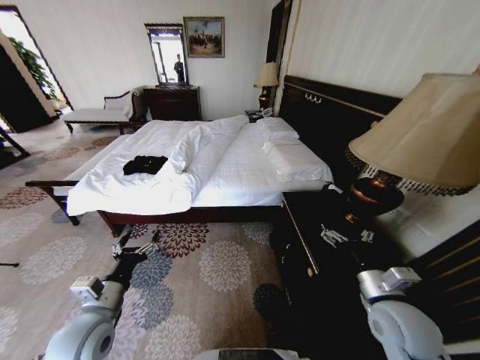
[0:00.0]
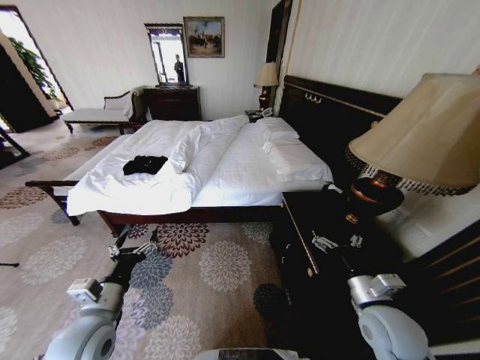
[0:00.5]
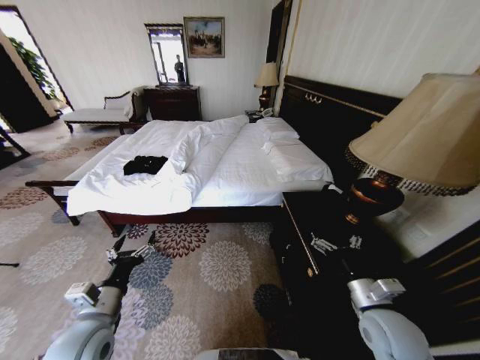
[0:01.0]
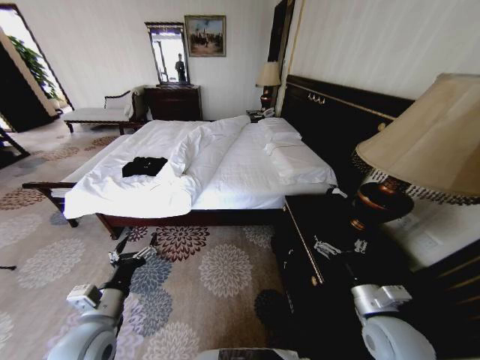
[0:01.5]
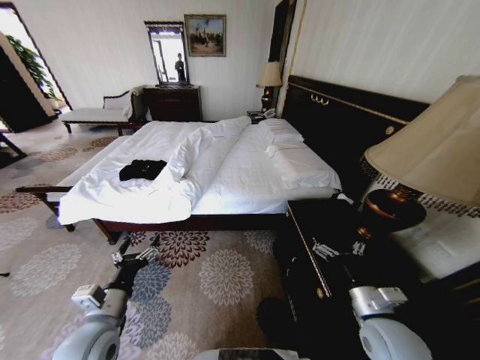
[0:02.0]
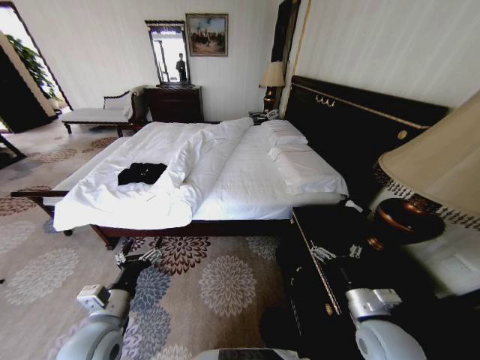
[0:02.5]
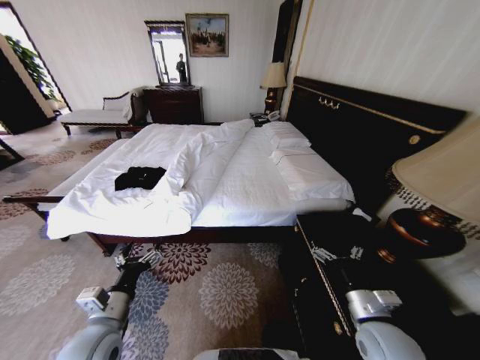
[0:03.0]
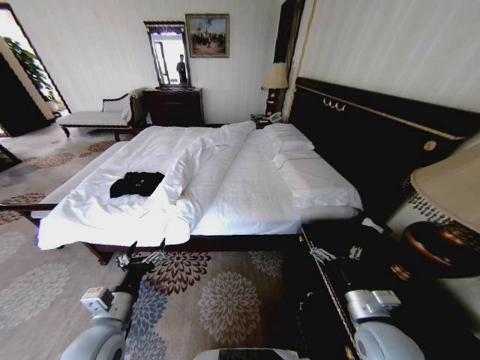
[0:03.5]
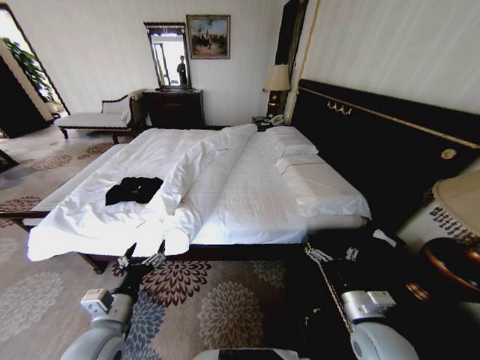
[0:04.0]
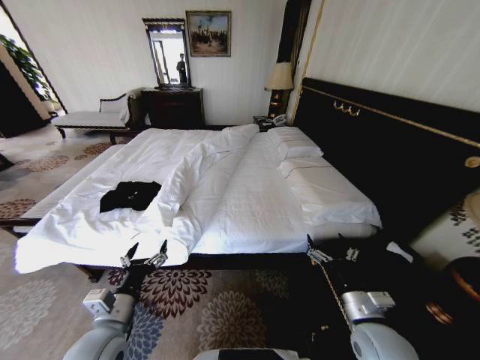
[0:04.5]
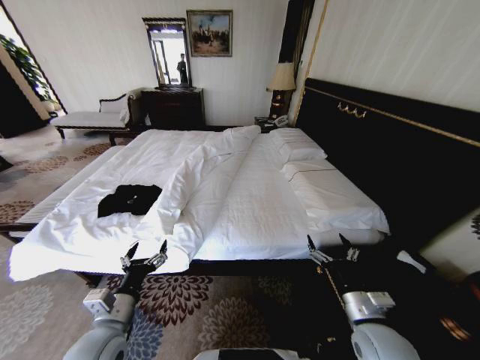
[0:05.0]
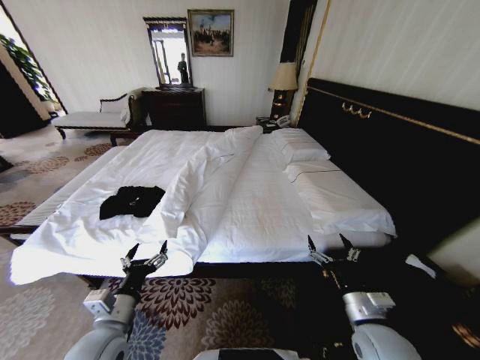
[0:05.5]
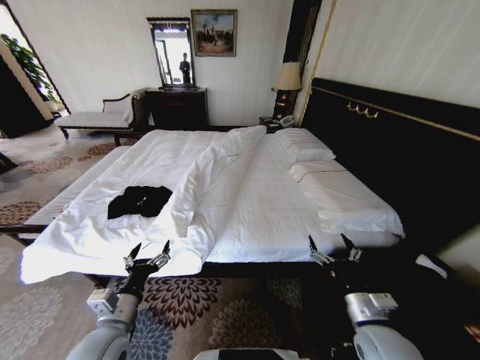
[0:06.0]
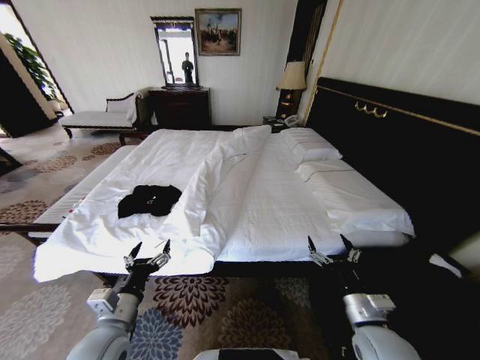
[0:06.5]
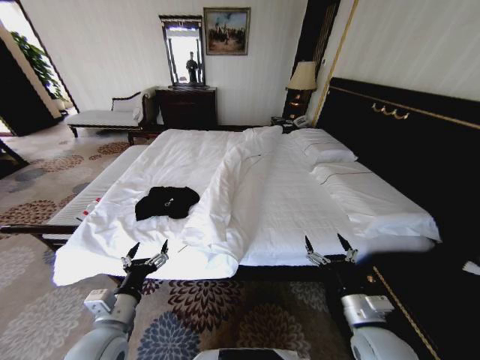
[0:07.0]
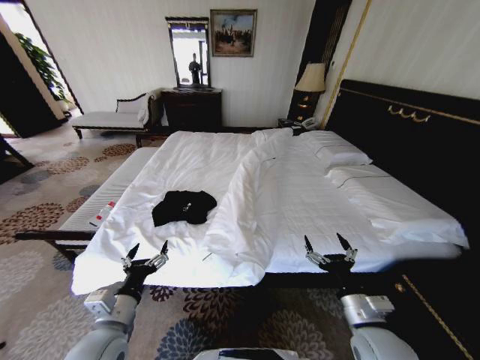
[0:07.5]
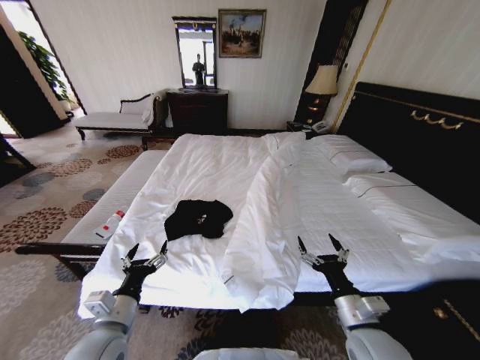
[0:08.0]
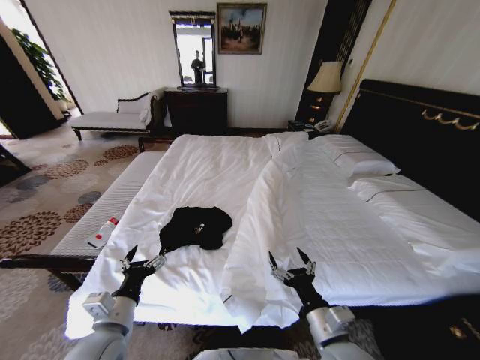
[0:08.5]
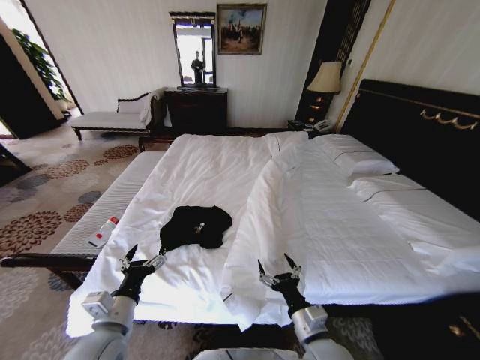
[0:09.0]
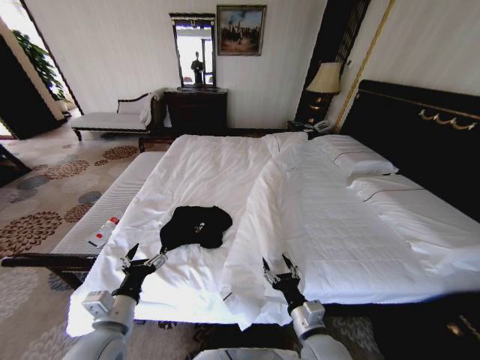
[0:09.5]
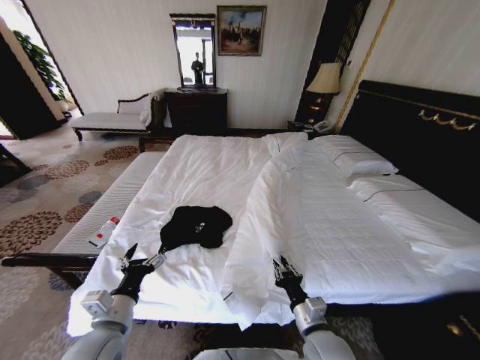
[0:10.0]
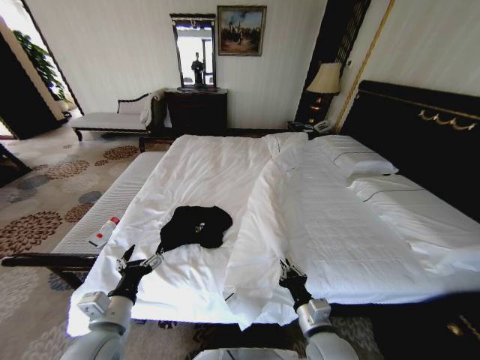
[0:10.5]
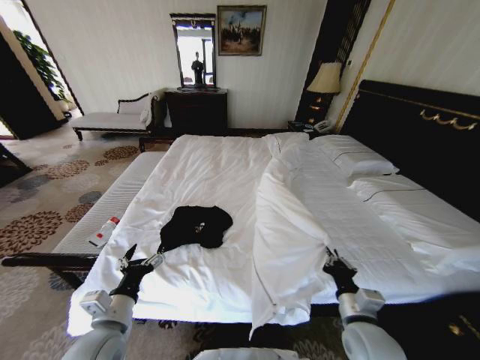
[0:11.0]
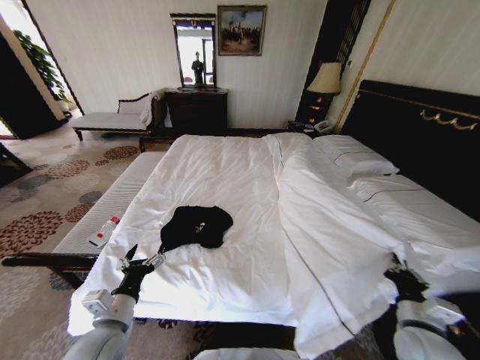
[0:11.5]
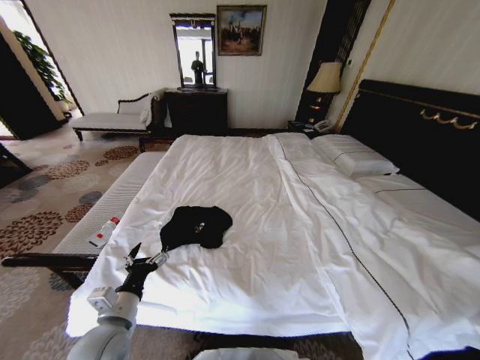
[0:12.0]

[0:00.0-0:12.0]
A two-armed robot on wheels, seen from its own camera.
Task of the whole recording: Fold the clothes on the bed.
0:08.0 to 0:10.0: The right gripper is displaced to the left and downward by roughly 10 cm, and closes.
0:10.0 to 0:12.0: The right gripper moves to the right, roughly 35 cm.

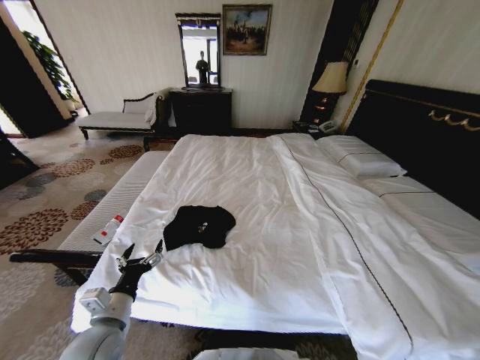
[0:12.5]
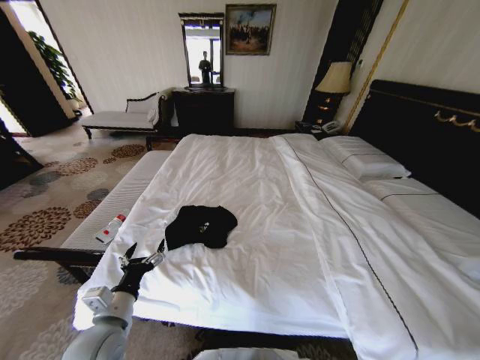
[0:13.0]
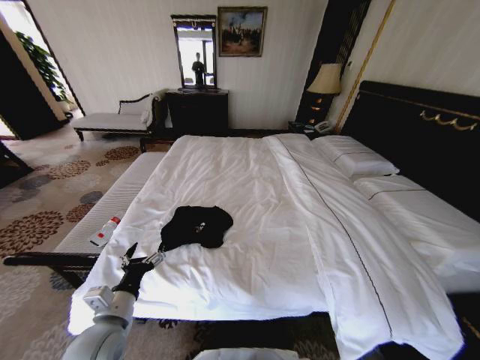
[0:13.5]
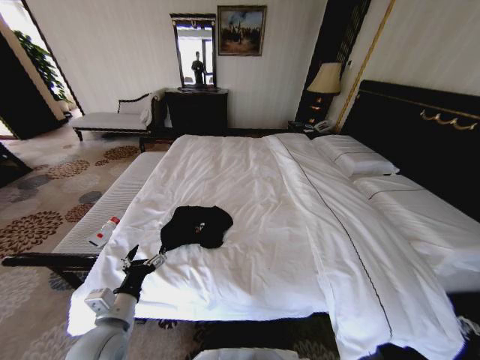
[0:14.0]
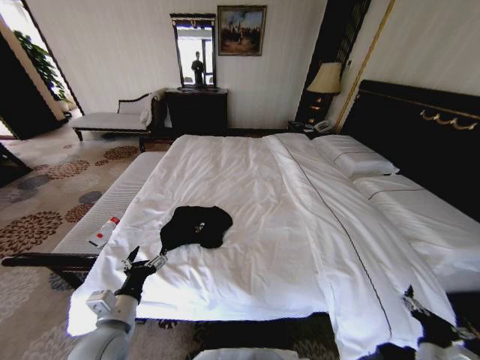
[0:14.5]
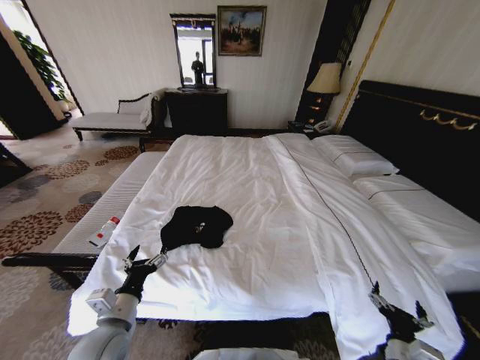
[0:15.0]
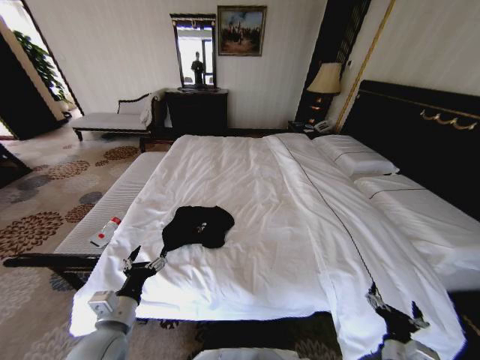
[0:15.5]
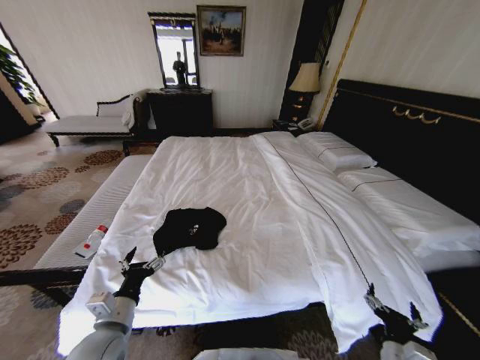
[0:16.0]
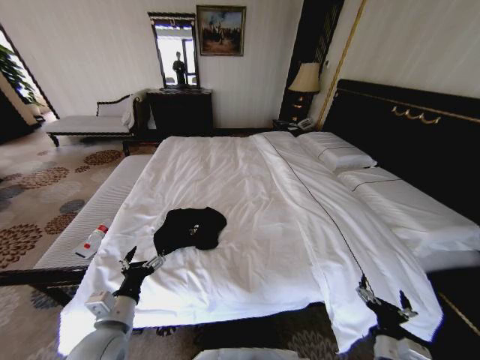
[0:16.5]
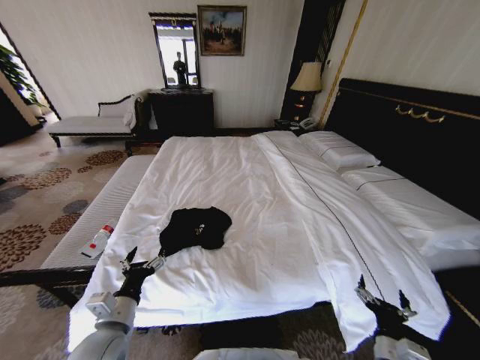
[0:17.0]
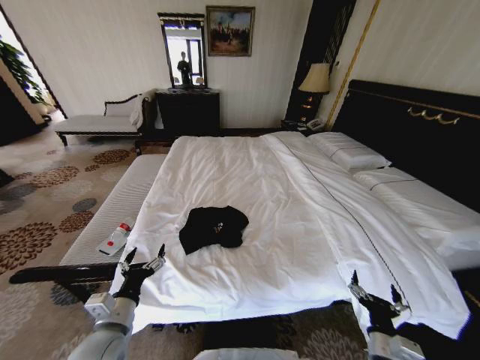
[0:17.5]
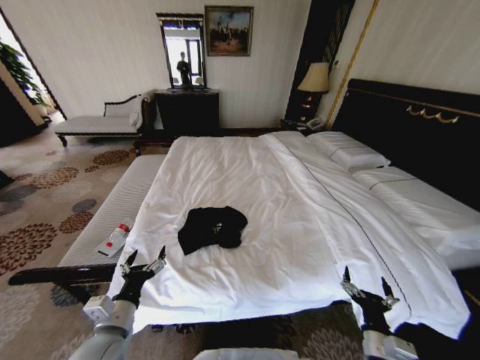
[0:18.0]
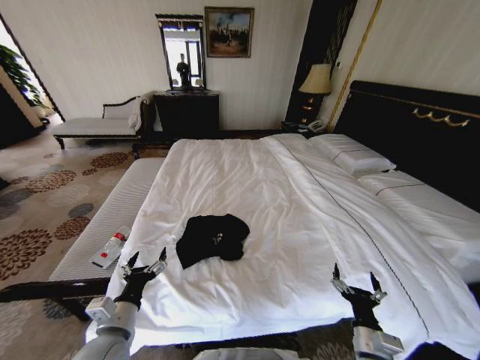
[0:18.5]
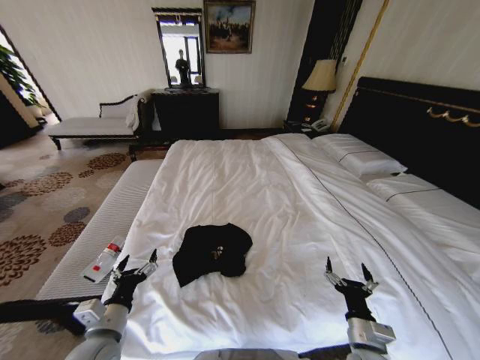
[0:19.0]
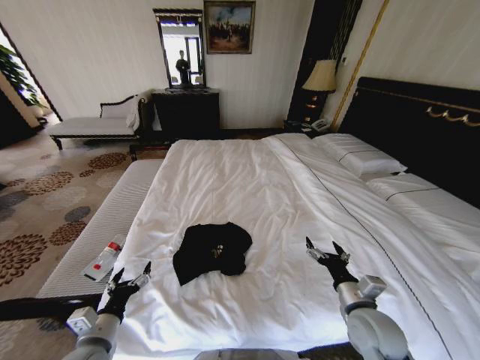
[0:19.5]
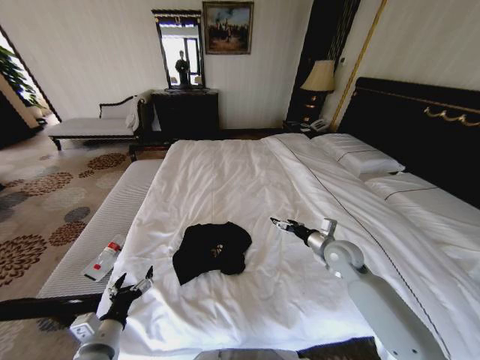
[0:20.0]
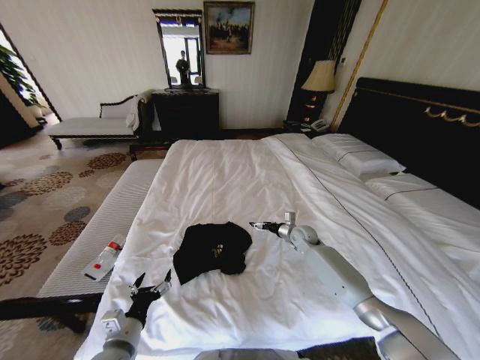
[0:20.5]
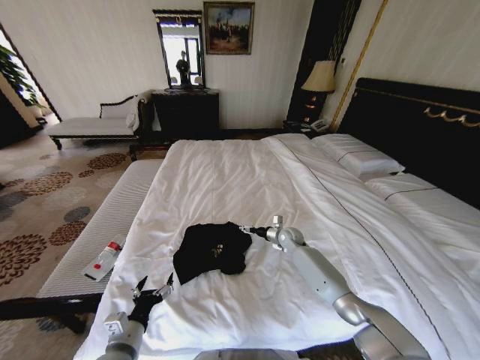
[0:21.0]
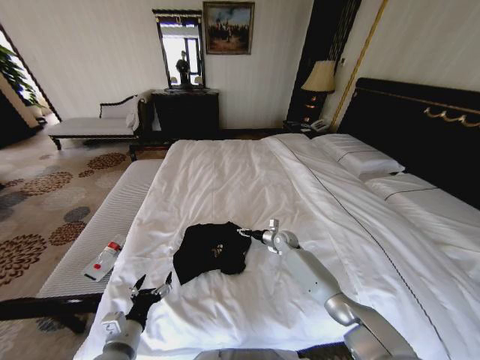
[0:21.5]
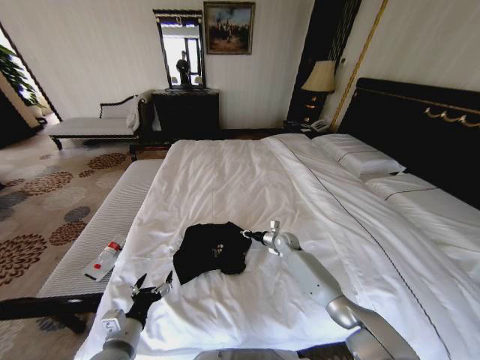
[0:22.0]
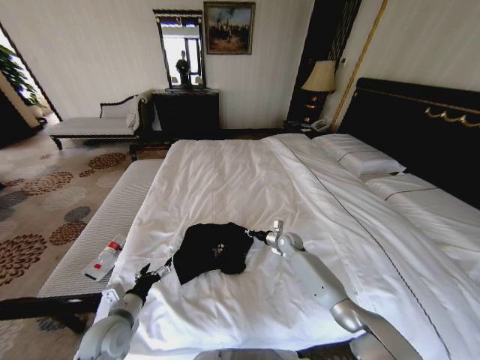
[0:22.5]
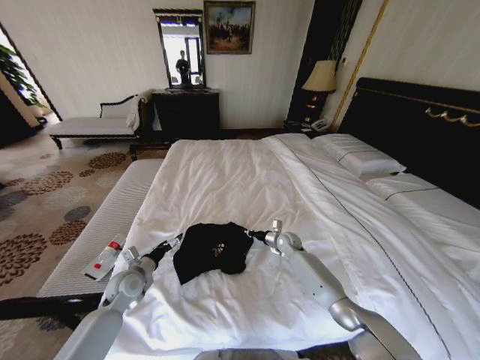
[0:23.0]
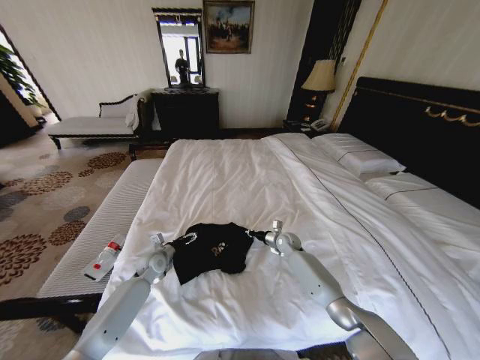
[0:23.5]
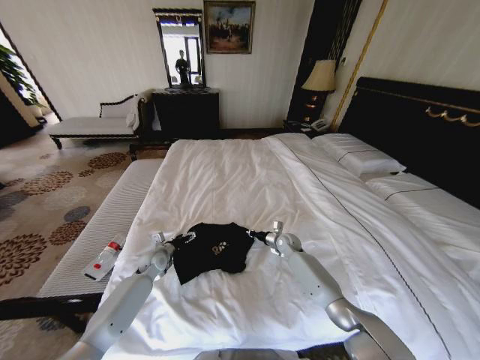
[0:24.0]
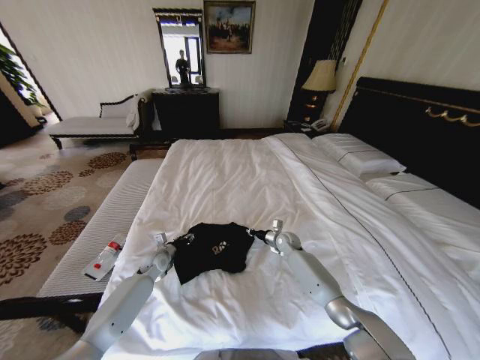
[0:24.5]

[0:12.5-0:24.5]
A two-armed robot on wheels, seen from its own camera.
Task of the whole recording: Fold the clothes on the bed.
0:12.5 to 0:14.5: The right gripper heads to the left, covering approximately 15 cm, and opens up.
0:14.5 to 0:16.5: The right gripper is displaced to the left by about 10 cm.
0:18.5 to 0:20.5: The right gripper heads forward, covering some 40 cm.
0:20.5 to 0:22.5: The right gripper moves downward, approximately 5 cm, and closes, while the left gripper is displaced forward by some 5 cm.
0:22.5 to 0:24.5: The left gripper goes approximately 25 cm forward, and closes.

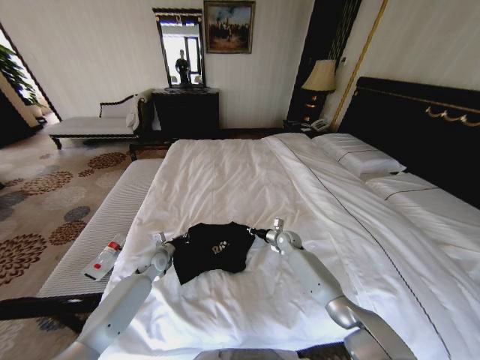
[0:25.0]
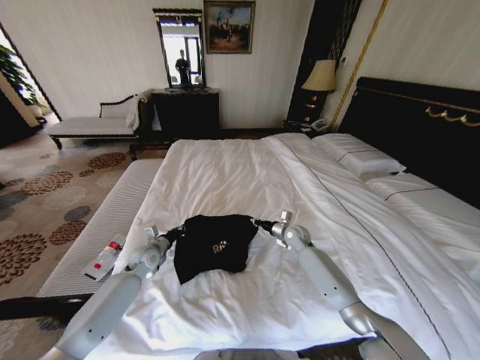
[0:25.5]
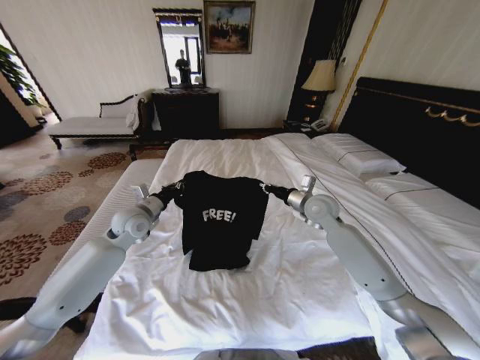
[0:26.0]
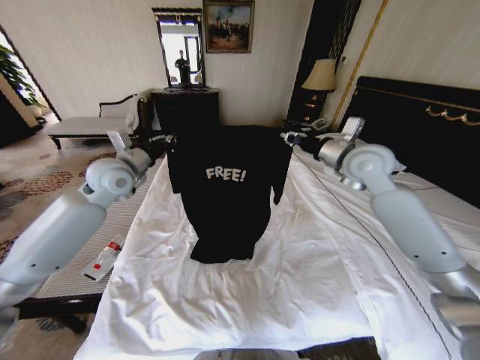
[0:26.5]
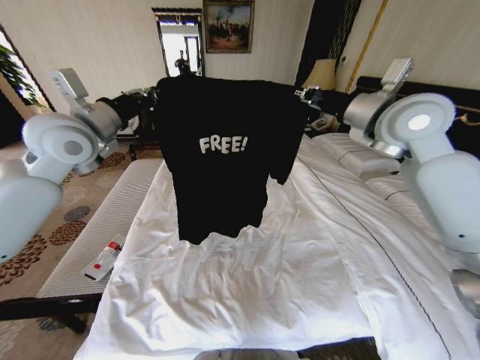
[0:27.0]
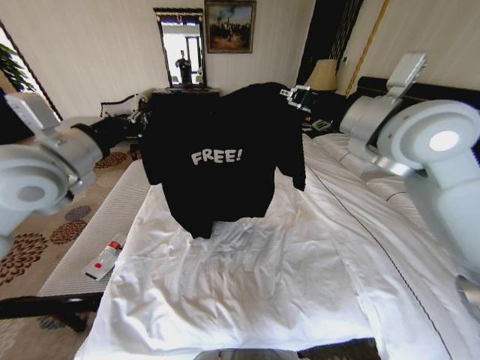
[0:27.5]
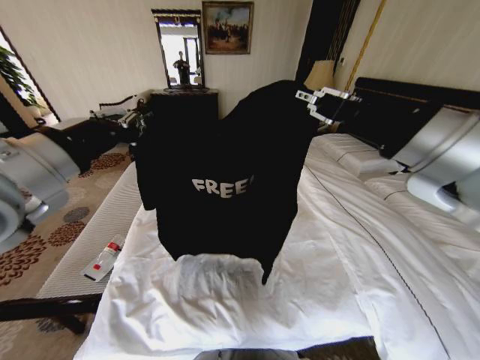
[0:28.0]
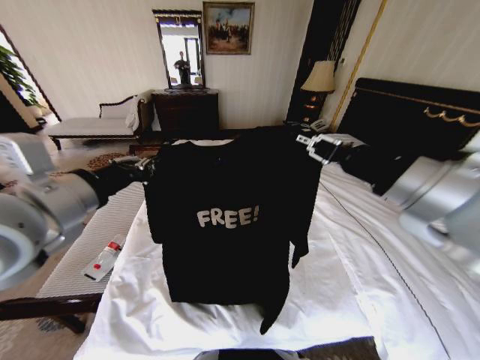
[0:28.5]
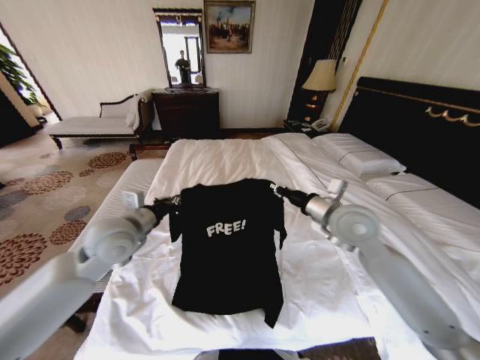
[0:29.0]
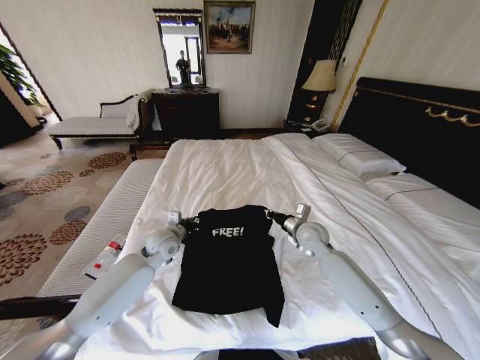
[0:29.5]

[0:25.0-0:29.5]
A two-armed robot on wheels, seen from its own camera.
Task of the whole recording: Fold the clothes on the bed.
0:25.0 to 0:27.0: The grippers both shift upward by about 50 cm.
0:27.0 to 0:29.5: Both grippers move downward, about 35 cm.
